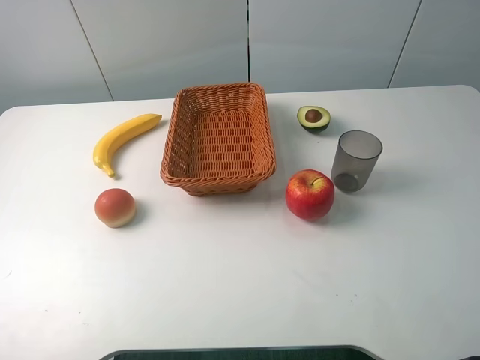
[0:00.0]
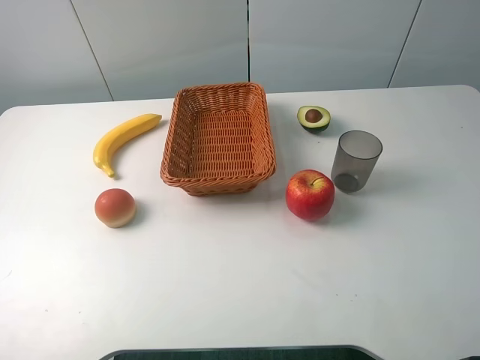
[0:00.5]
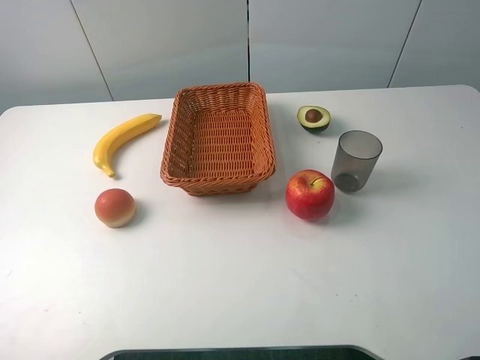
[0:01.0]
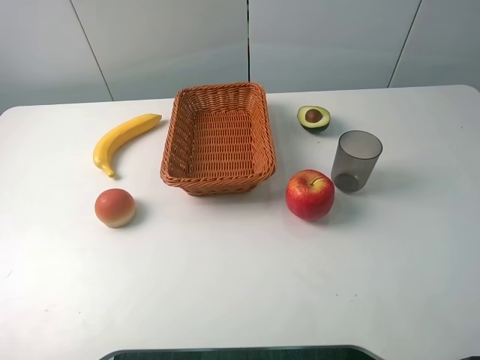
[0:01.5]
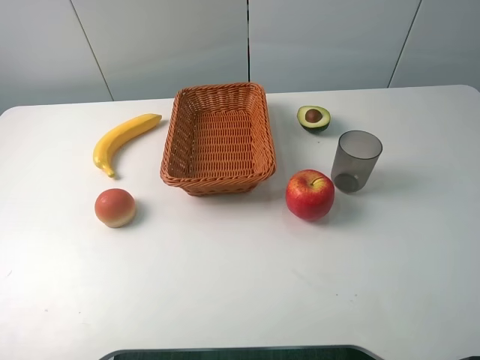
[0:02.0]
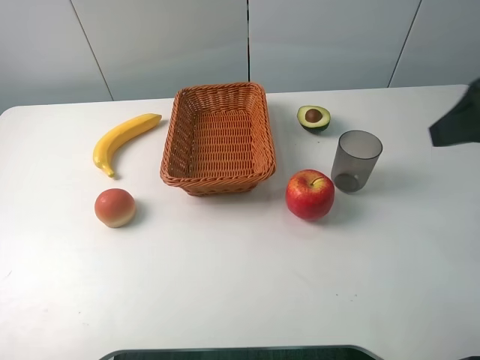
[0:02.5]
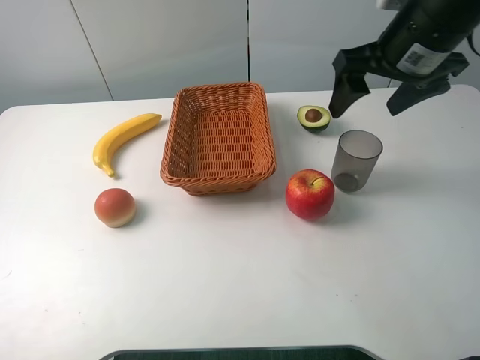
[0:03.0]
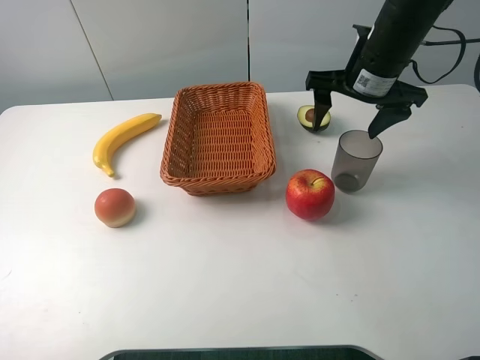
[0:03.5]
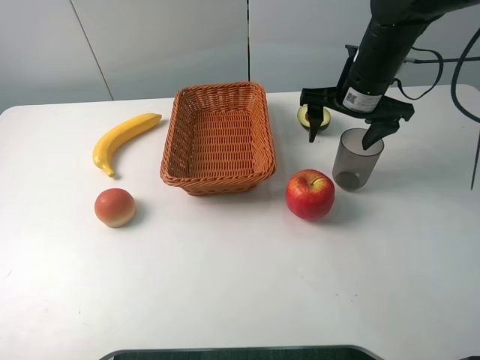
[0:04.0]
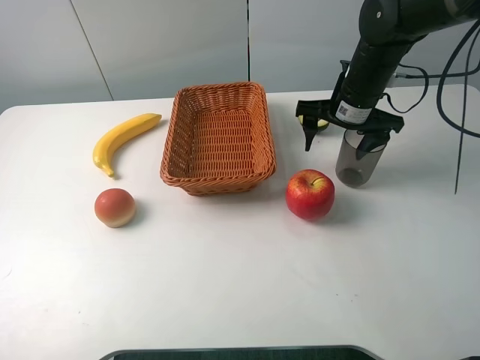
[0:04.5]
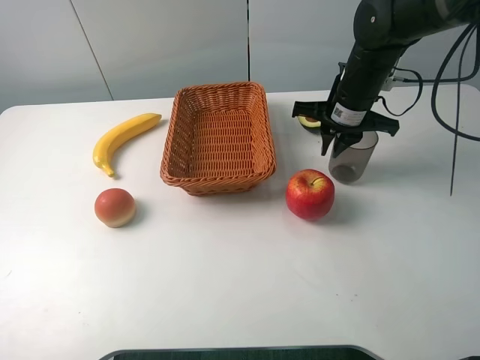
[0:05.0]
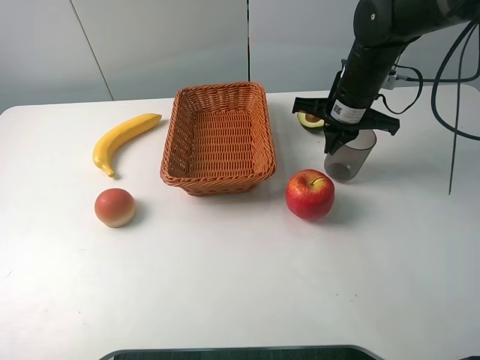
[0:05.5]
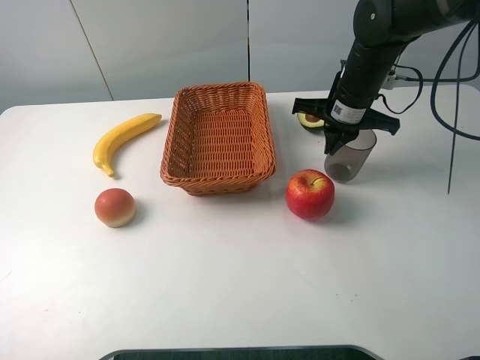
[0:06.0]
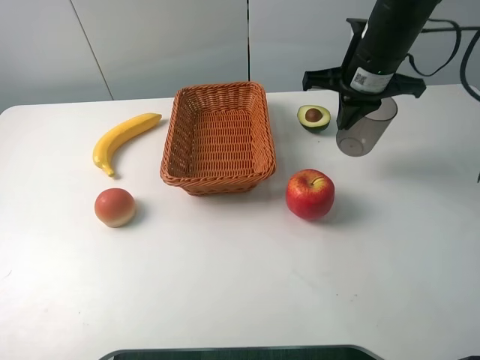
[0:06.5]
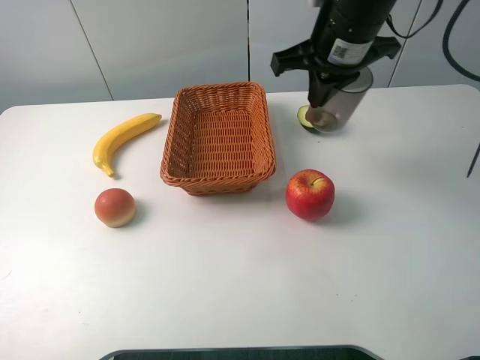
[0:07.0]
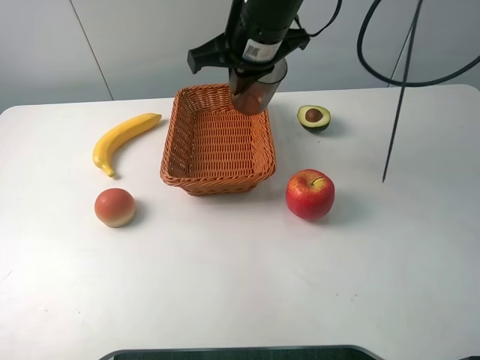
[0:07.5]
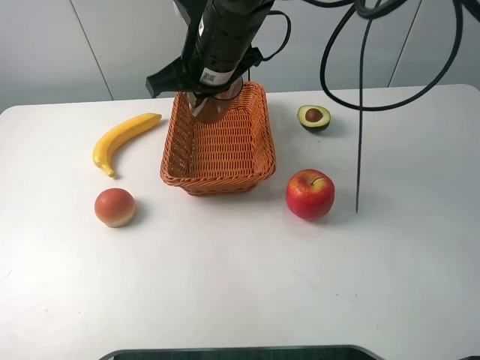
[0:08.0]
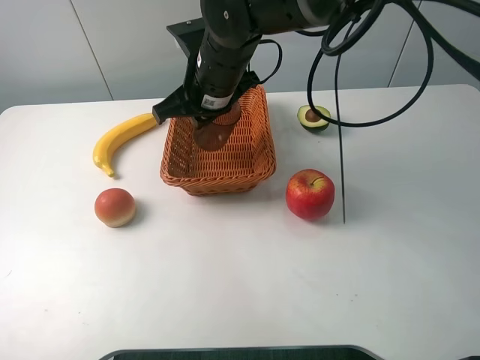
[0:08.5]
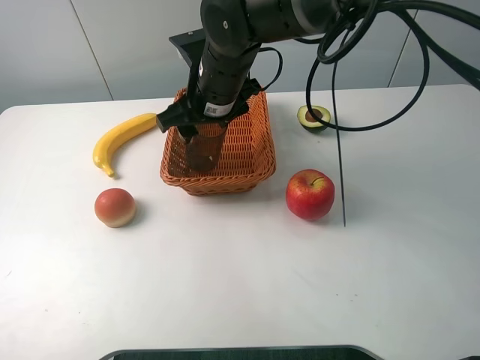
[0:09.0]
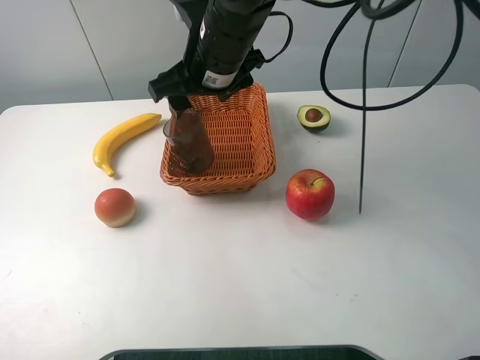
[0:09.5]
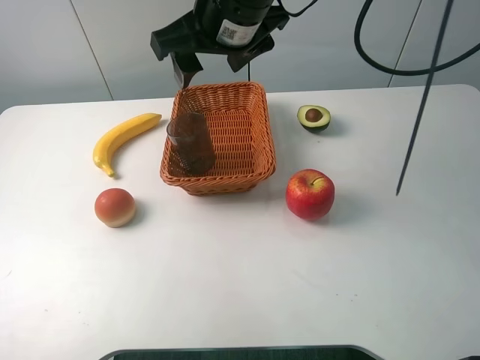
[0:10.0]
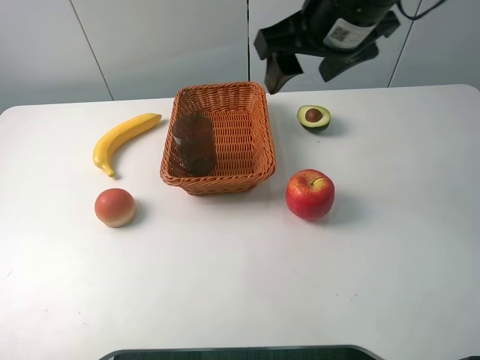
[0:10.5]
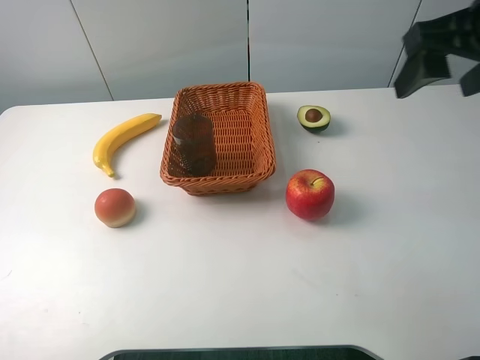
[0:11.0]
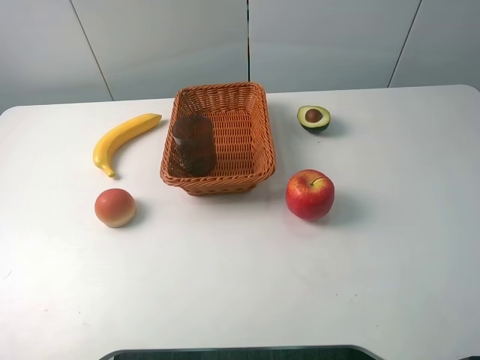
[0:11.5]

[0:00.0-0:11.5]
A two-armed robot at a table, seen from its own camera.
0:02.0 to 0:04.0: The right gripper moves forward, approximately 35 cm.
0:04.0 to 0:06.0: The right gripper closes its fingers.
0:06.0 to 0:07.5: The right gripper is displaced to the left and upward by approximately 20 cm.
0:07.5 to 0:09.5: The right gripper opens its fingers.
0:09.5 to 0:11.5: The right gripper is displaced to the right and backward by about 35 cm.

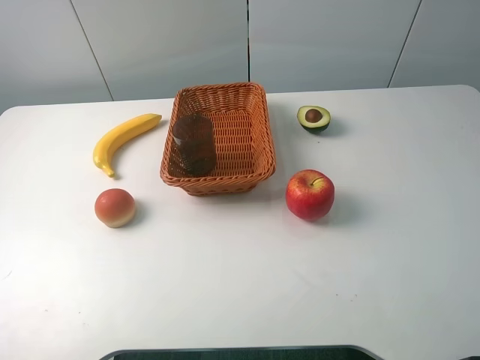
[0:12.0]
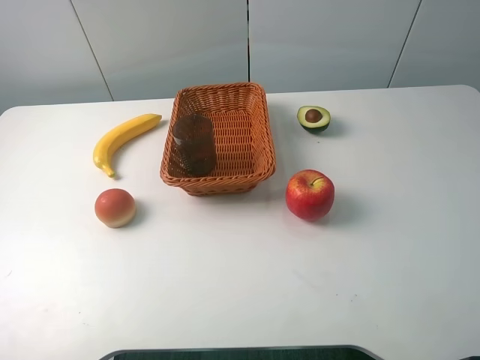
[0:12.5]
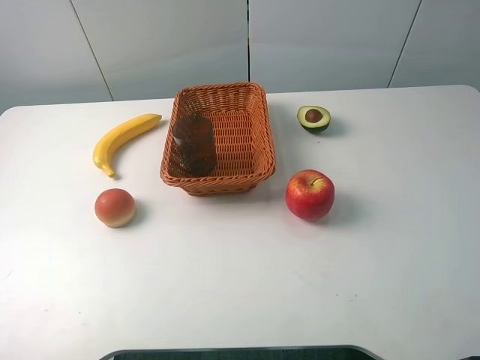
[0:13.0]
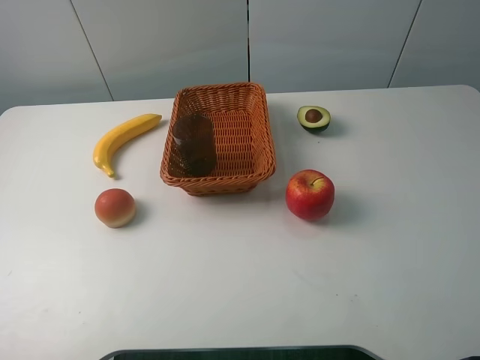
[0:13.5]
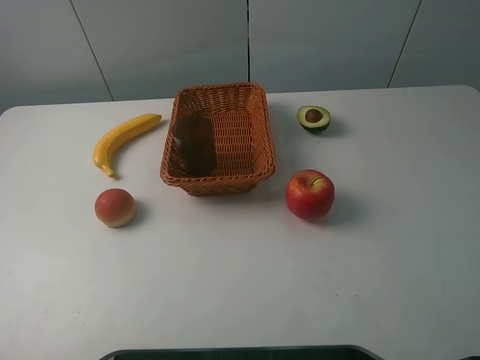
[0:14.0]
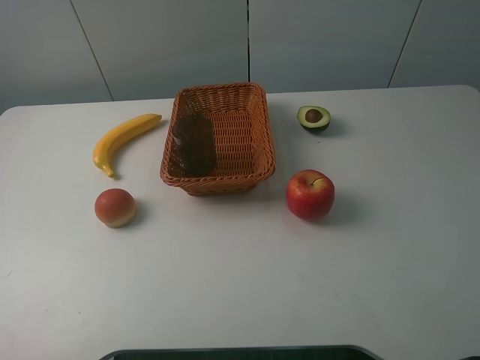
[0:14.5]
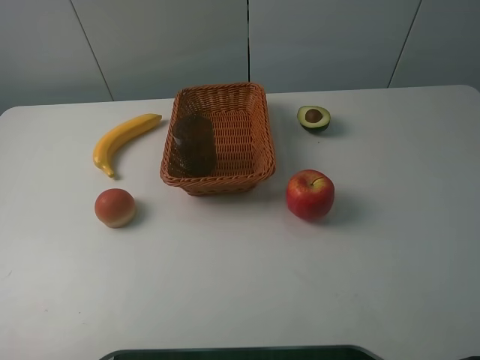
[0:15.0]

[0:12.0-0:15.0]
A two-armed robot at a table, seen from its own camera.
0:12.0 to 0:13.5: The right gripper ends up approximately 5 cm from where it was.
